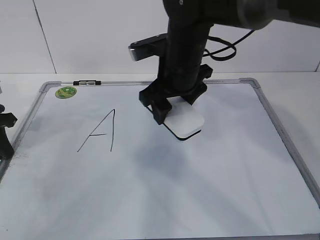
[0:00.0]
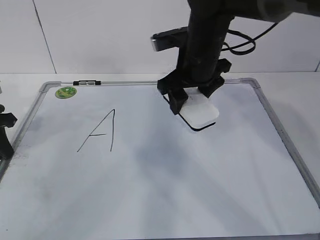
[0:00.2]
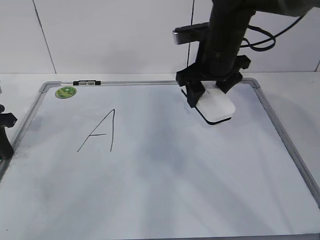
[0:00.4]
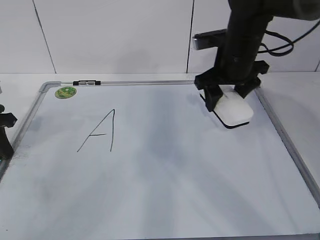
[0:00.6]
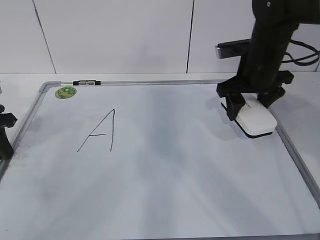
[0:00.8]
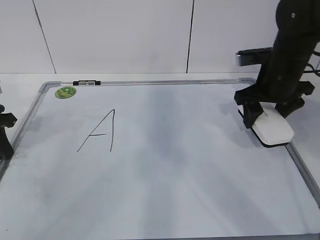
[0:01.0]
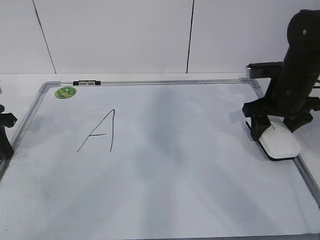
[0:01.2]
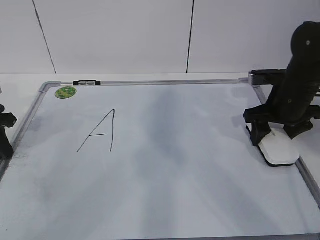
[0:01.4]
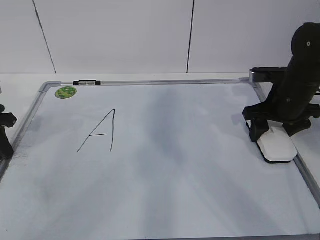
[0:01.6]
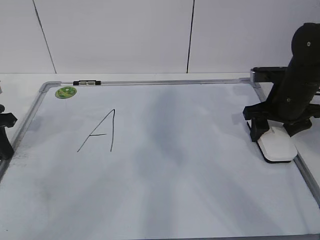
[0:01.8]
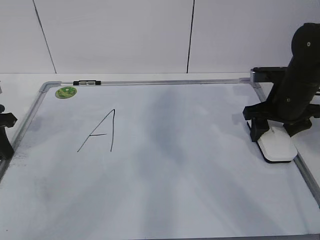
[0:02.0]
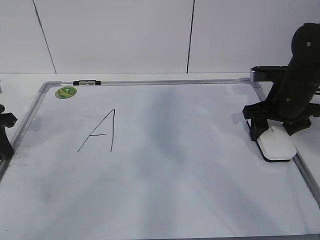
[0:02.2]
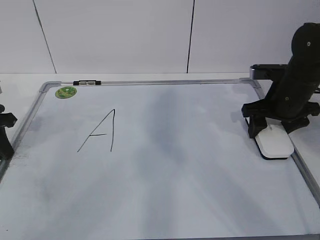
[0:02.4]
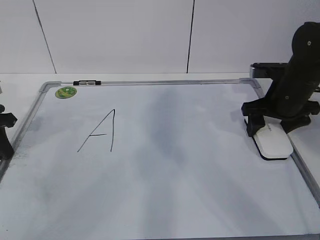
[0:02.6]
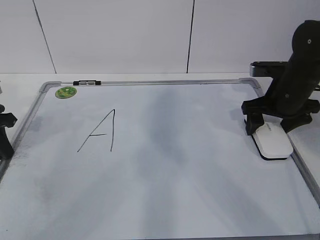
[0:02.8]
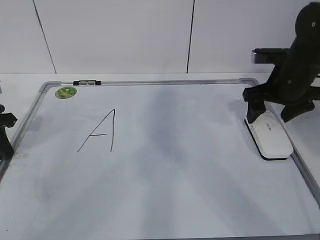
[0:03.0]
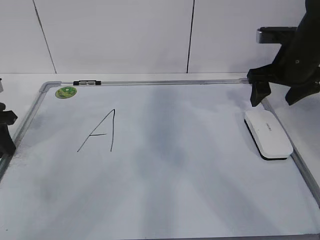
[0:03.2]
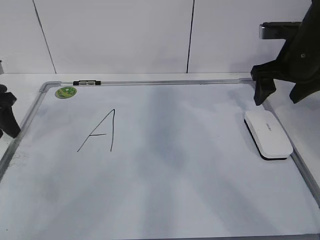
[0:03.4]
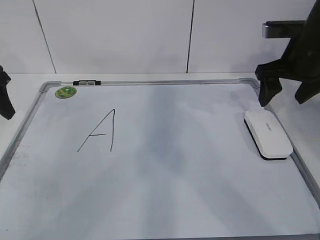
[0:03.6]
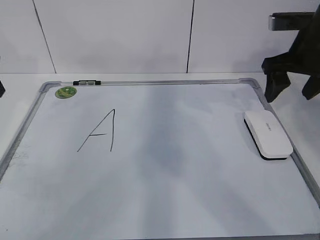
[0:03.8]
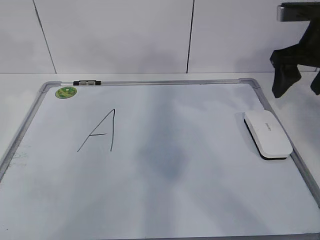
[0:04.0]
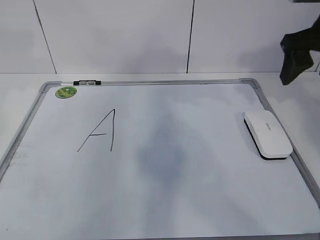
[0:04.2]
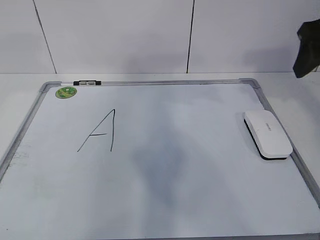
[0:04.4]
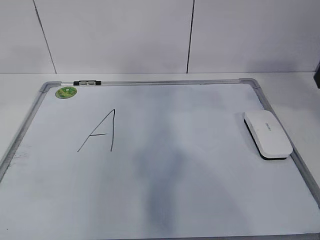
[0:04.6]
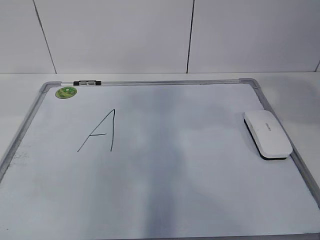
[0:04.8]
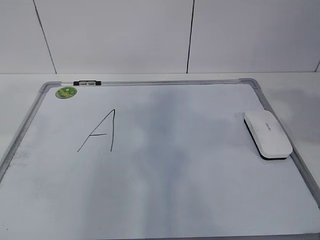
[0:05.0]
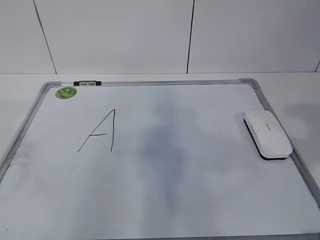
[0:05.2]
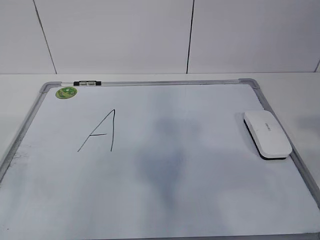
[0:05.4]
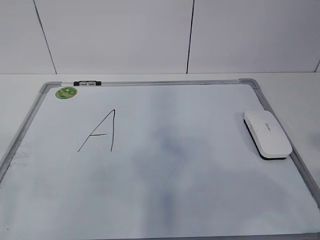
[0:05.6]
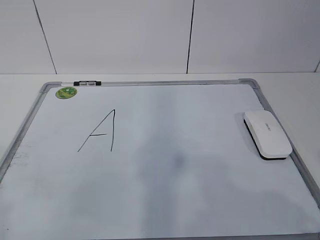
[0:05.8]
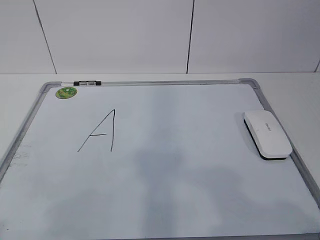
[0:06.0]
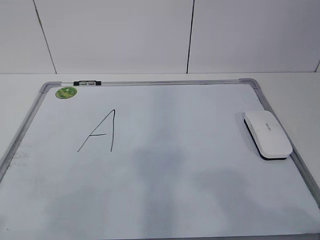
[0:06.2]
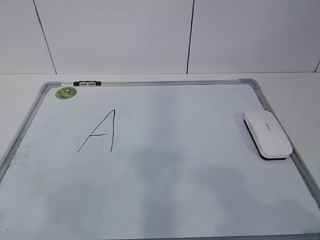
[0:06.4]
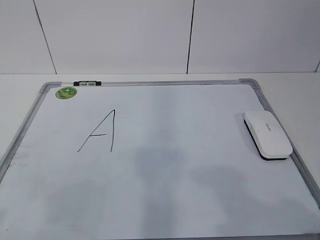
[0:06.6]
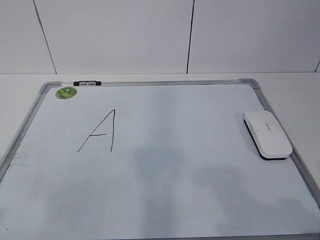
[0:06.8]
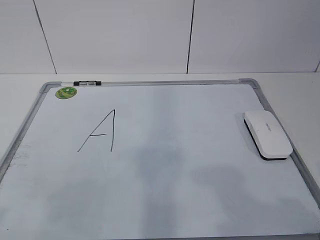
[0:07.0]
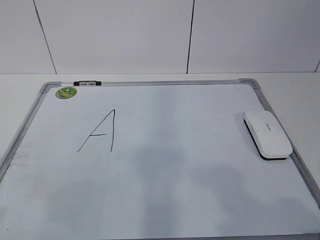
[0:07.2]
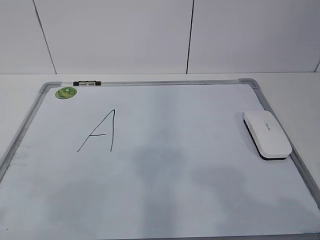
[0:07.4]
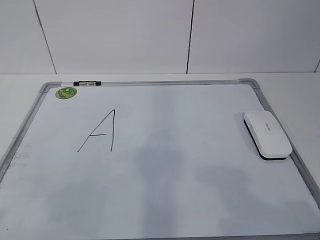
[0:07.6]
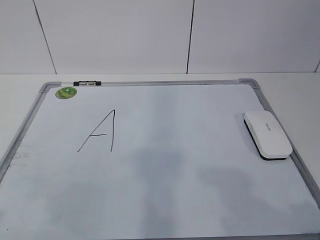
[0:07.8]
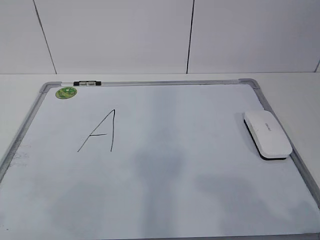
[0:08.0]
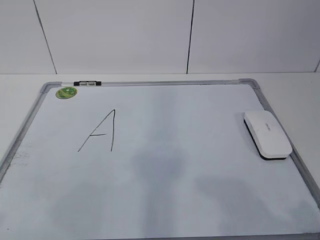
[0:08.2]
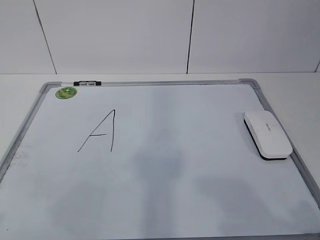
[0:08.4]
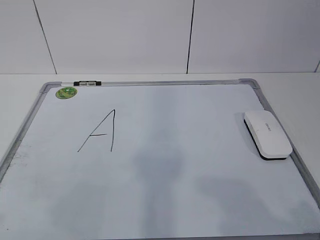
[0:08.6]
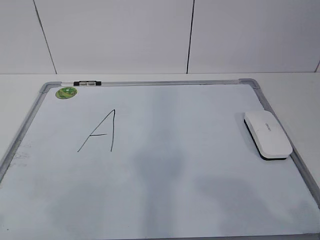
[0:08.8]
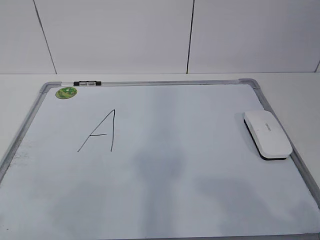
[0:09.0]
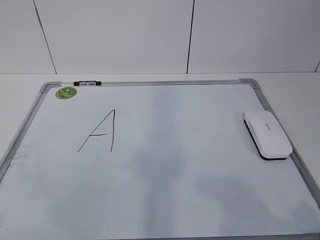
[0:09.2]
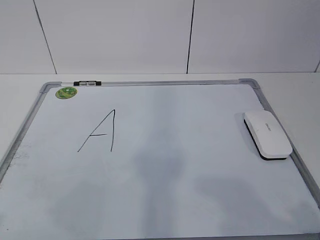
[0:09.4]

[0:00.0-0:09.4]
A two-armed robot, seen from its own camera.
Task of the whole recording: pick up the eraser on the blackboard and erase the letter "a".
0.0 to 1.6 s: The right gripper shifts some 20 cm to the right.
1.6 to 3.2 s: The right gripper shifts about 5 cm upward, and opens up.
3.2 to 4.8 s: The left gripper is displaced upward and backward by about 30 cm, and opens its fingers, while the right gripper is displaced backward and upward by about 20 cm, and closes.
4.8 to 6.2 s: Both grippers move backward and downward, about 20 cm.

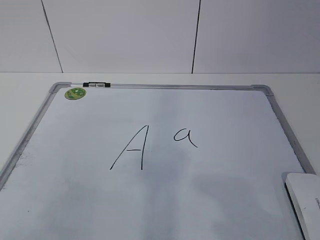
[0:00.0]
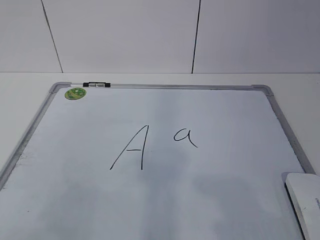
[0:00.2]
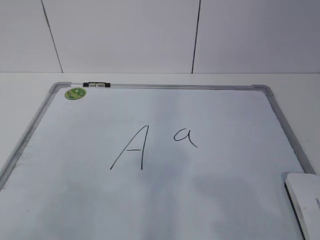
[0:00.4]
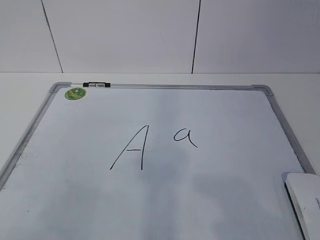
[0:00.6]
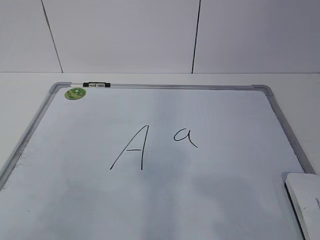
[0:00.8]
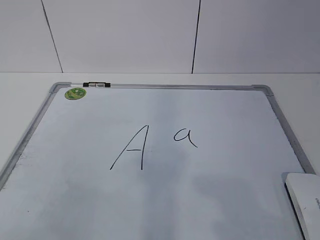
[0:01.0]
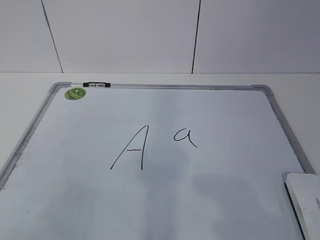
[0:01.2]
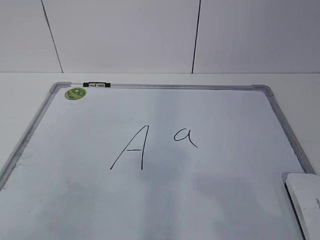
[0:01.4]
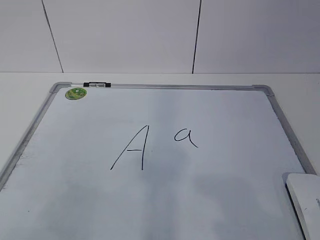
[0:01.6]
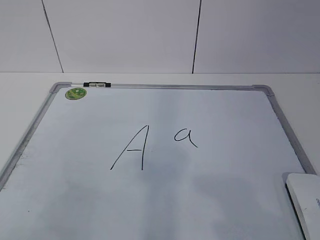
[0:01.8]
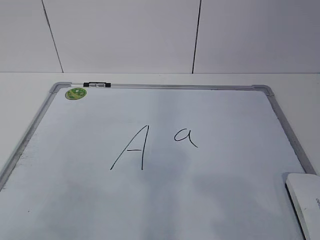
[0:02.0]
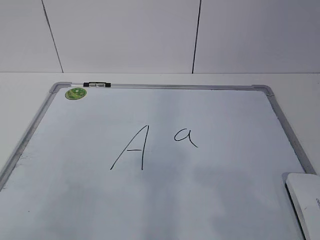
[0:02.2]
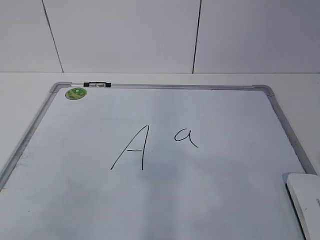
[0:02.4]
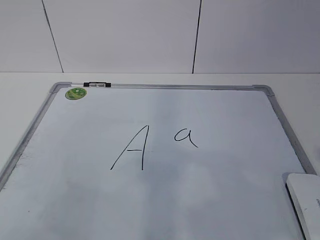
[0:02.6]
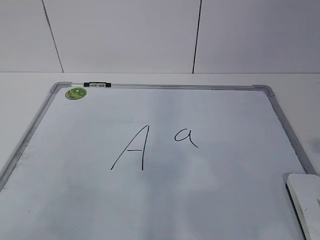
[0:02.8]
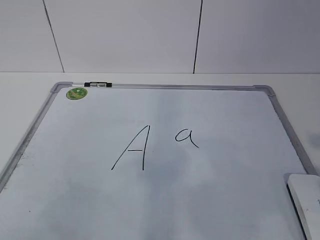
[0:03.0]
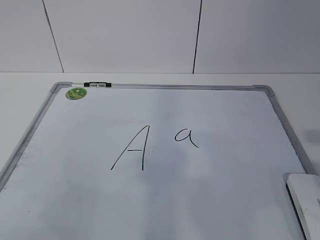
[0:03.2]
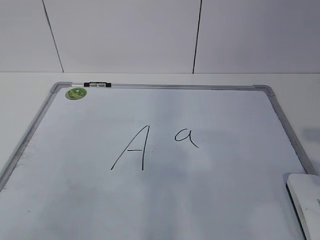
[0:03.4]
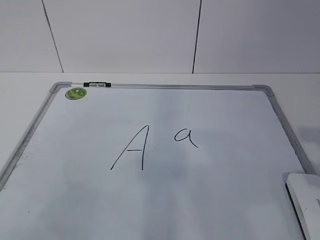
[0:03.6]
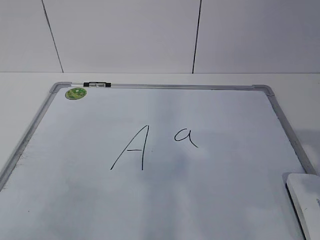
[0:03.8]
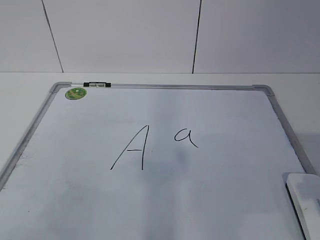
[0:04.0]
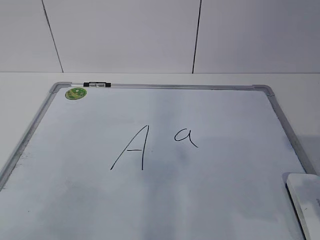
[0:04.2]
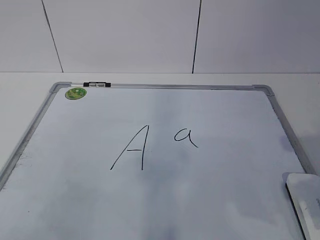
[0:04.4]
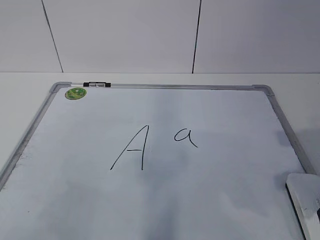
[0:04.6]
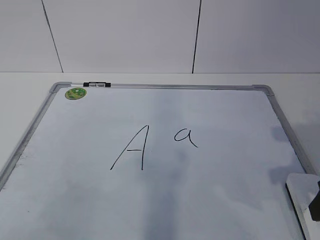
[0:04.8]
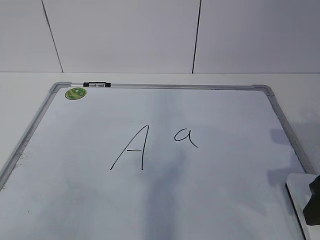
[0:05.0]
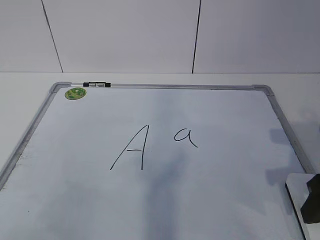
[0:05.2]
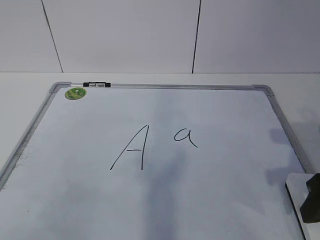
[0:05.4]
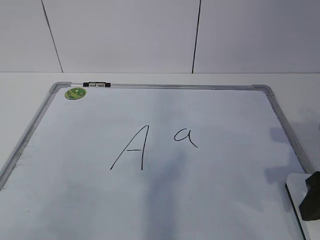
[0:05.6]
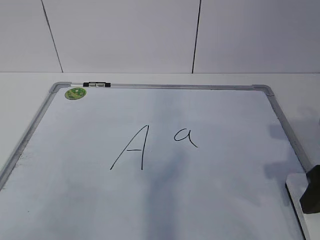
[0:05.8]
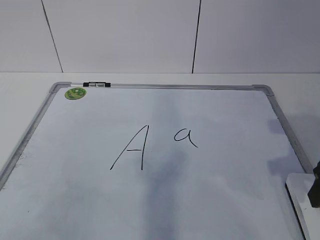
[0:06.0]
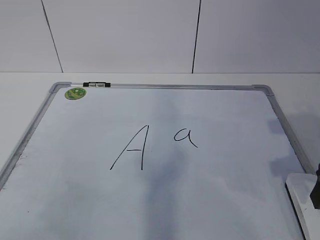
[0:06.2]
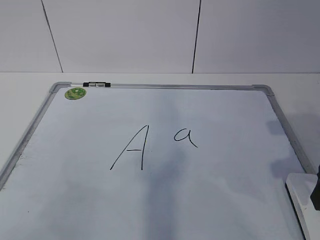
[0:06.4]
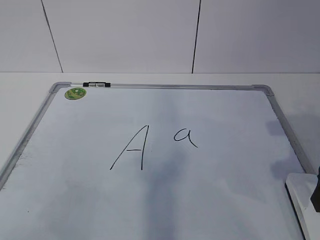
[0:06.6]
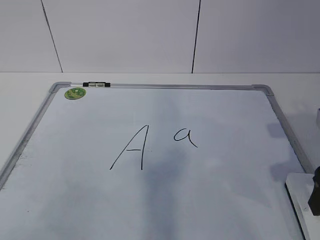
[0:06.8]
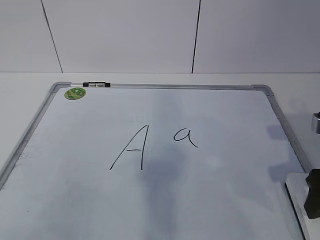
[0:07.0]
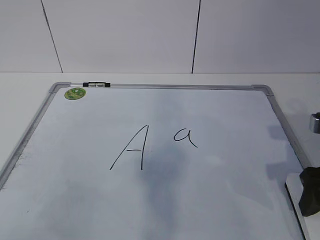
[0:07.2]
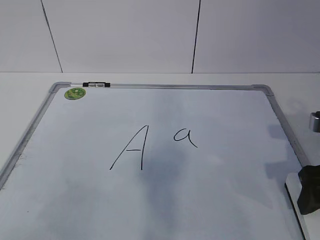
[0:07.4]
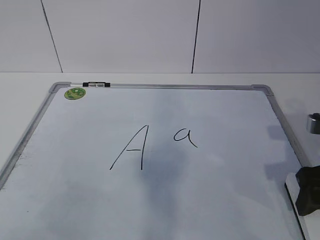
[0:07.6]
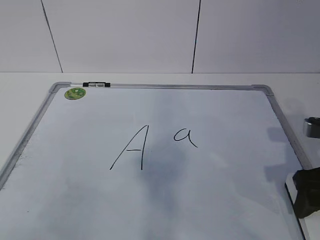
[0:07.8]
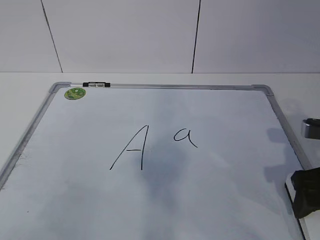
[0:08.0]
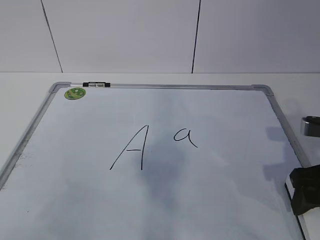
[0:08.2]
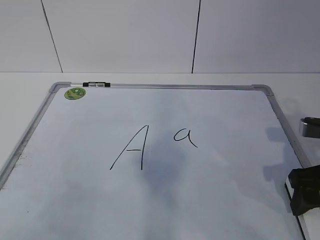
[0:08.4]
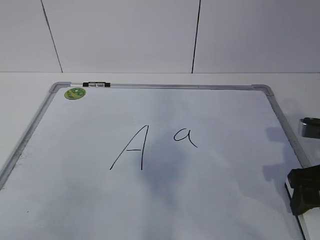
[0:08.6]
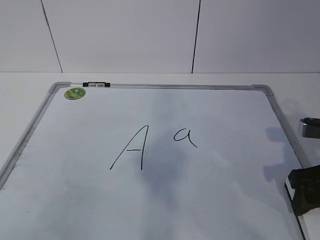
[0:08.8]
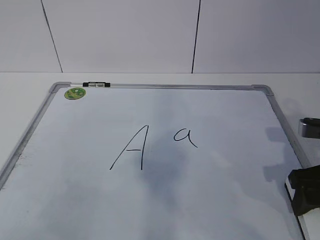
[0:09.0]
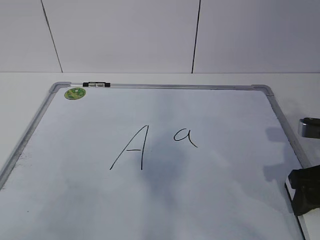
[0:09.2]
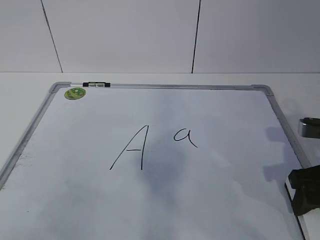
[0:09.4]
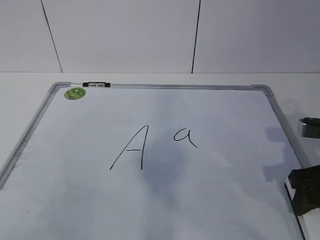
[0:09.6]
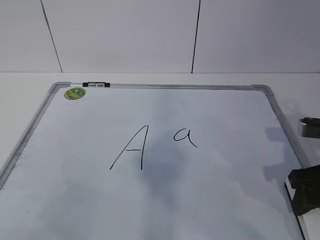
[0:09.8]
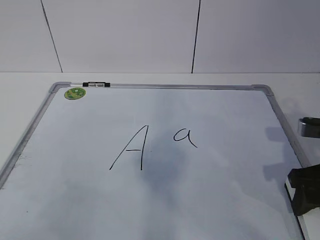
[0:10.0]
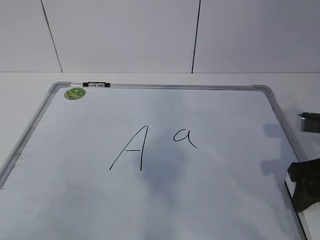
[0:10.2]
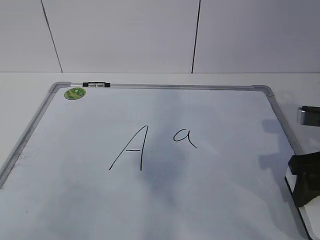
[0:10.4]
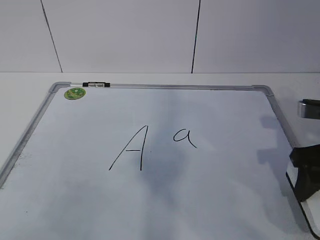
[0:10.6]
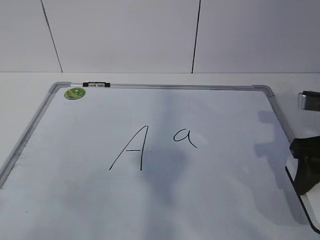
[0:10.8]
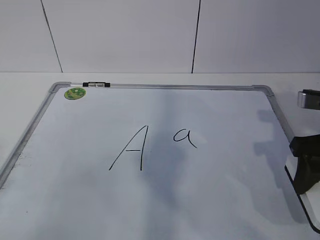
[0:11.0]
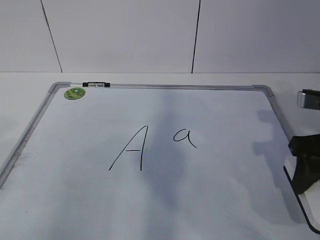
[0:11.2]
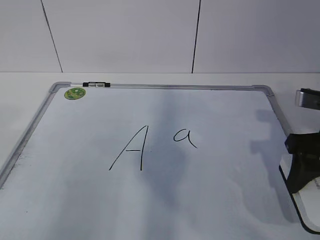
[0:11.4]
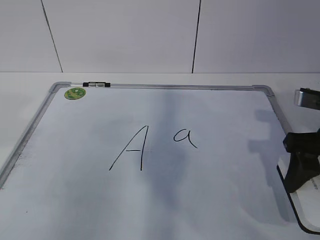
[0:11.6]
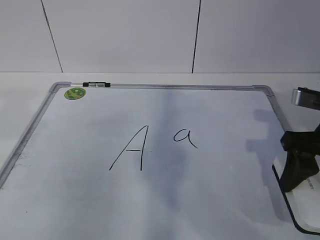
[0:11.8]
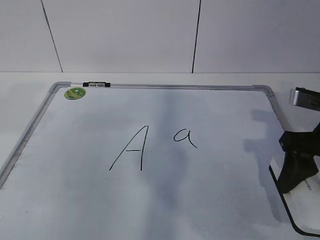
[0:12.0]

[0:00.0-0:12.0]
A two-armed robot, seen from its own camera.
Task of the whole recording: pick up the eraser on the blackboard and erase the letter "a".
1.6 to 3.0 s: The right gripper heads forward, covering approximately 5 cm.
3.0 to 4.4 s: The right gripper is displaced forward and downward by roughly 10 cm.
4.4 to 6.0 s: There are only small adjustments of the grippers.
6.0 to 7.6 s: The right gripper opens up.
7.6 to 9.0 s: The right gripper closes.
9.0 to 10.4 s: There are only small adjustments of the grippers.

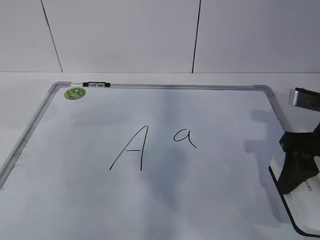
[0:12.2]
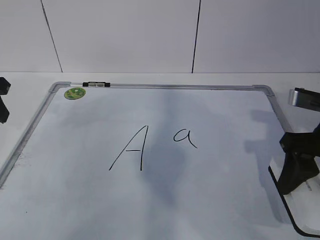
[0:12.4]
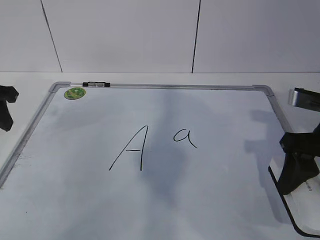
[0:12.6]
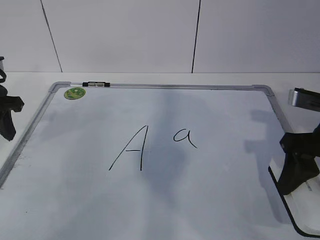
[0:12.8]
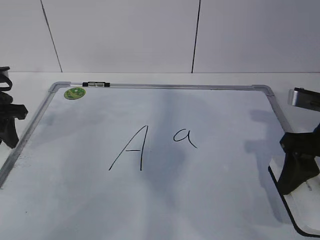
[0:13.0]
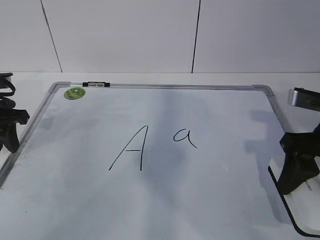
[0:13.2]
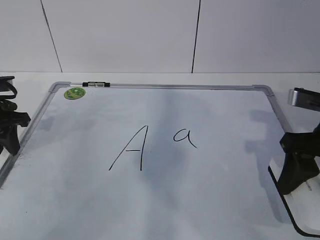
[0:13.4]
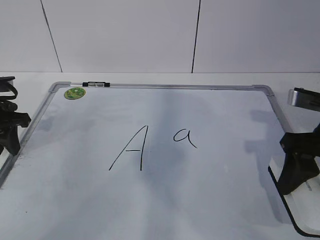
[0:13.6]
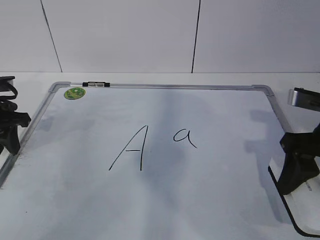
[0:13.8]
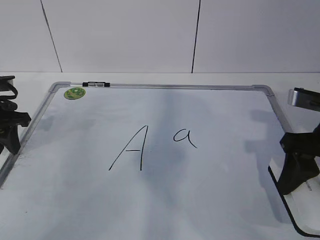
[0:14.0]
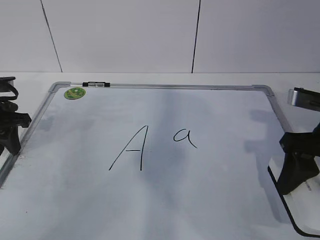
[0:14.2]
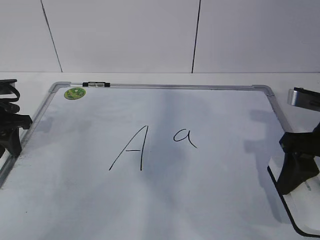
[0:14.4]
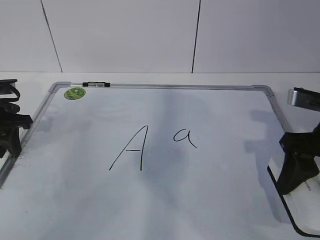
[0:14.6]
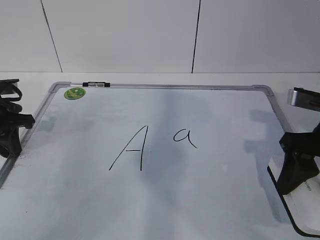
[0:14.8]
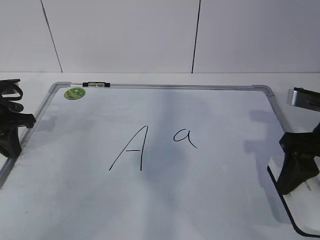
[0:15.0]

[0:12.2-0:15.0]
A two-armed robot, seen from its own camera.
Task of the whole recording: pick up the eraser on the blackboard and erase the letter "a".
12.2 to 13.6 s: The left gripper shifts roughly 15 cm downward and forward.
13.6 to 15.0 s: The left gripper closes.
